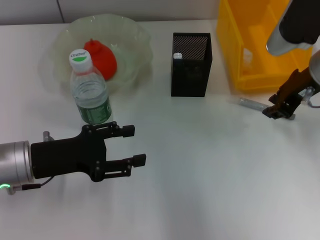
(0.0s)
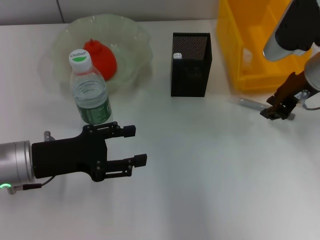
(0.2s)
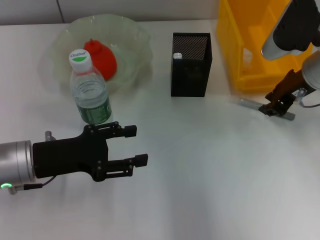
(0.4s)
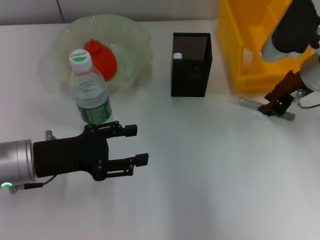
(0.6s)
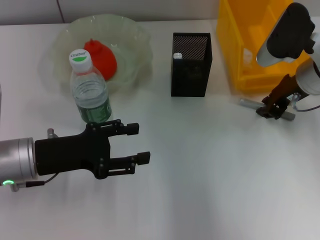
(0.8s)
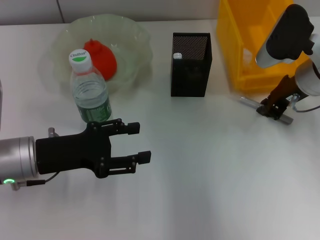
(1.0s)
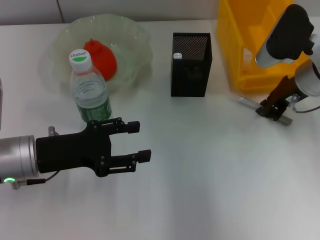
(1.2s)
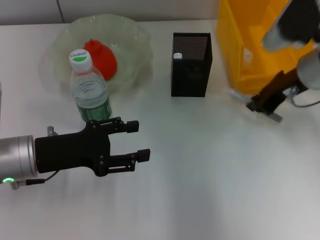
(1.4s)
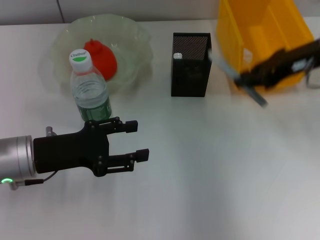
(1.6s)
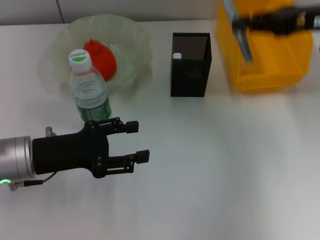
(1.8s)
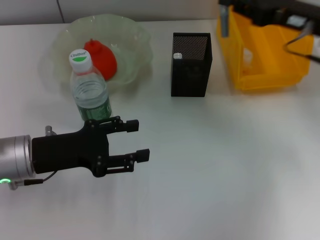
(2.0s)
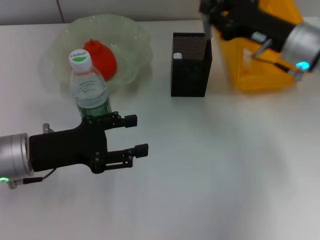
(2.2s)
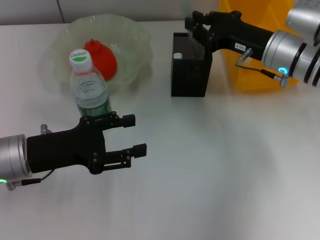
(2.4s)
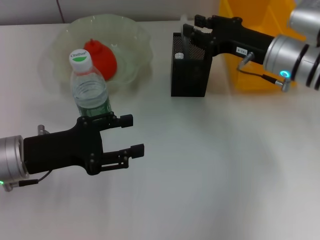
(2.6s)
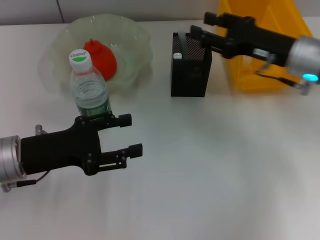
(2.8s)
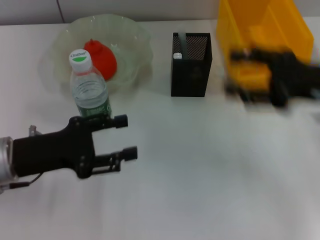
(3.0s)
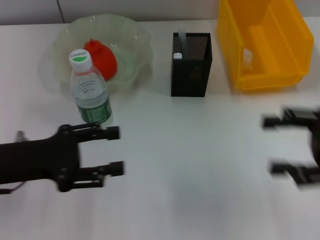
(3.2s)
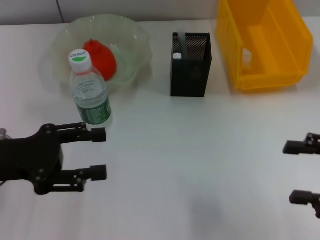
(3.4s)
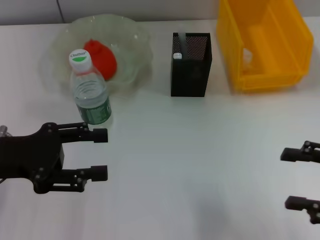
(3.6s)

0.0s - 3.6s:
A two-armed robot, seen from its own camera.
Step, 0.0s - 1.0s: Grab the gray glue with the right hand.
Step, 1.2s - 2.4s: Place the gray glue into the pen holder with the right hand.
0.0s - 1.8s: The right gripper is displaced to the right by some 5 cm, and closes.
1.8s - 3.6s: The right gripper moves backward and downward, roughly 20 cm, and opens its fingers. The left gripper moves approximately 5 cm.

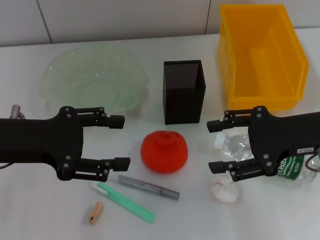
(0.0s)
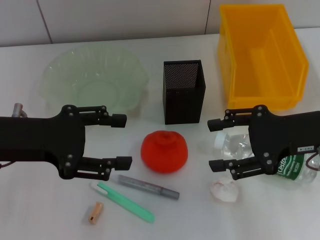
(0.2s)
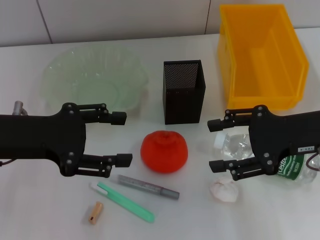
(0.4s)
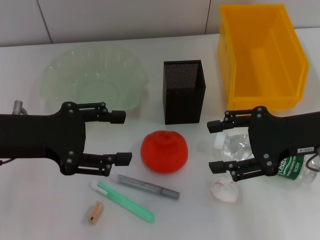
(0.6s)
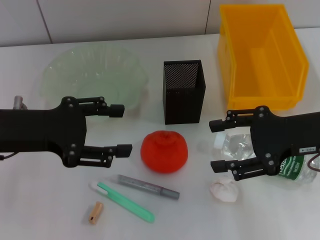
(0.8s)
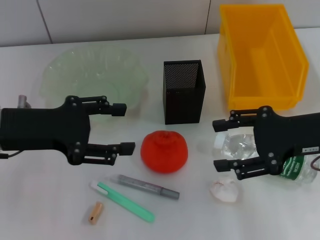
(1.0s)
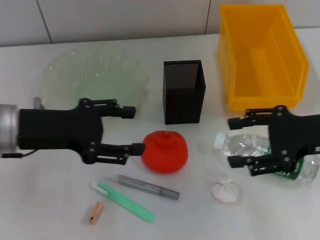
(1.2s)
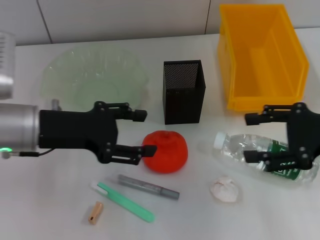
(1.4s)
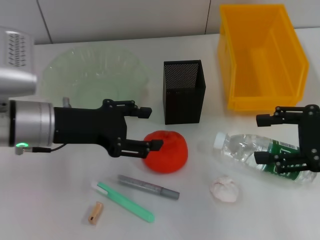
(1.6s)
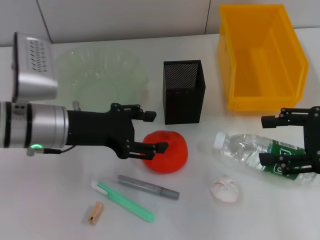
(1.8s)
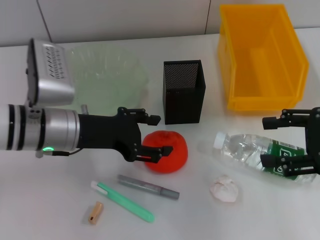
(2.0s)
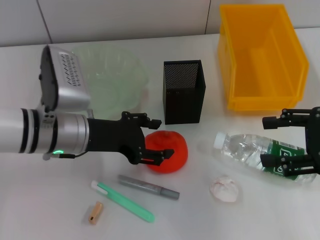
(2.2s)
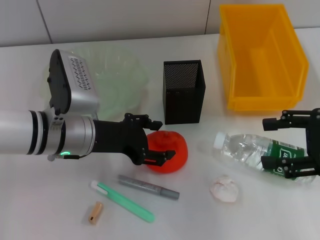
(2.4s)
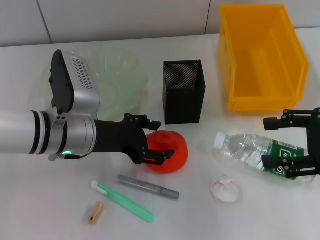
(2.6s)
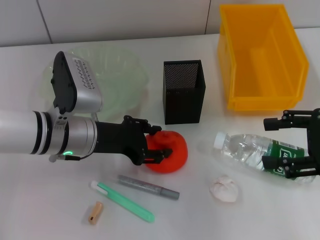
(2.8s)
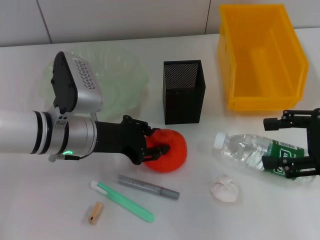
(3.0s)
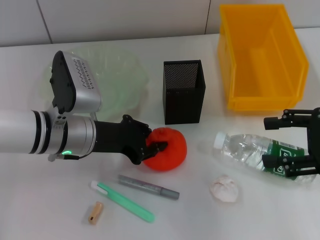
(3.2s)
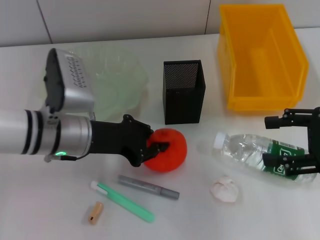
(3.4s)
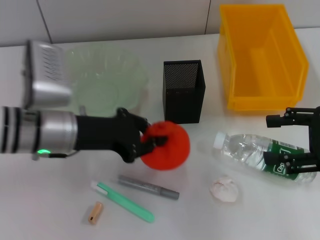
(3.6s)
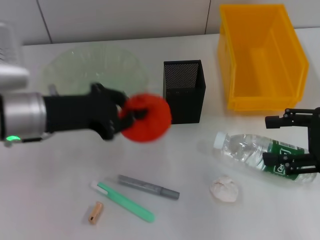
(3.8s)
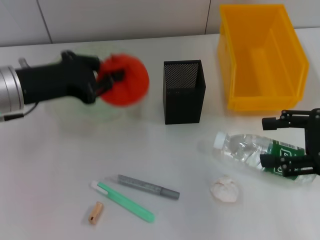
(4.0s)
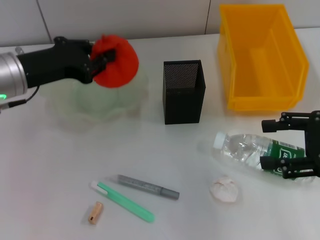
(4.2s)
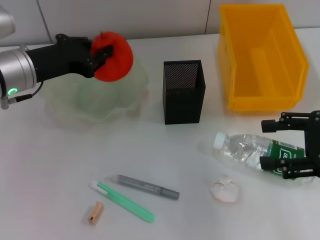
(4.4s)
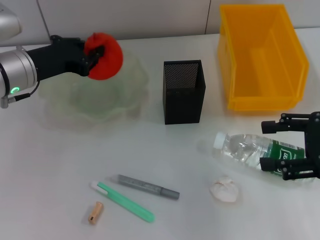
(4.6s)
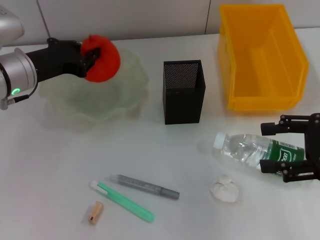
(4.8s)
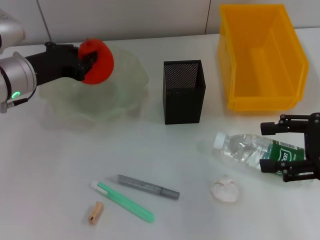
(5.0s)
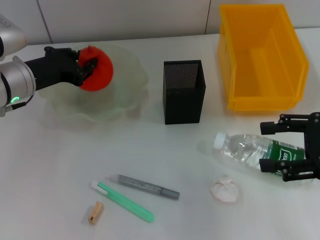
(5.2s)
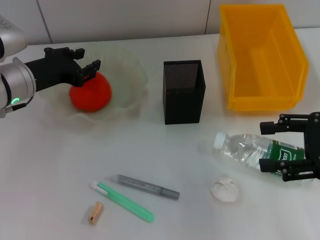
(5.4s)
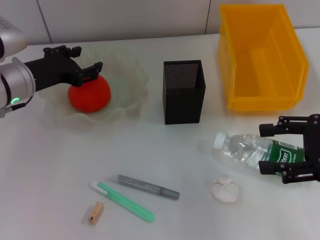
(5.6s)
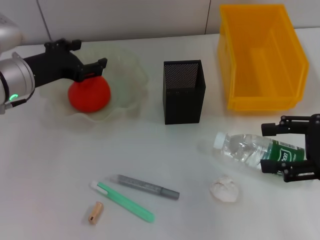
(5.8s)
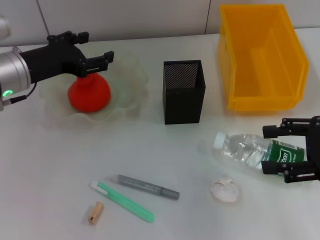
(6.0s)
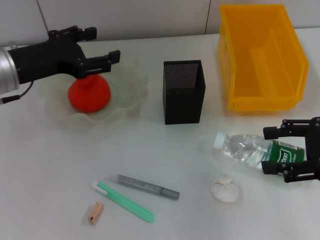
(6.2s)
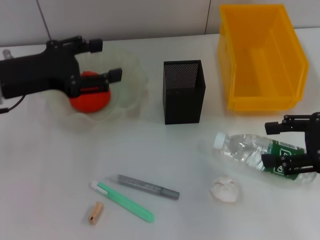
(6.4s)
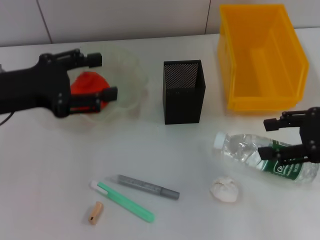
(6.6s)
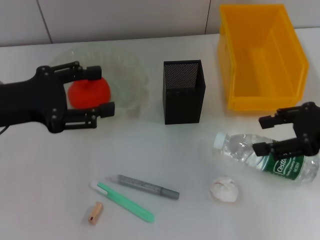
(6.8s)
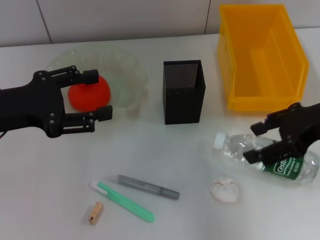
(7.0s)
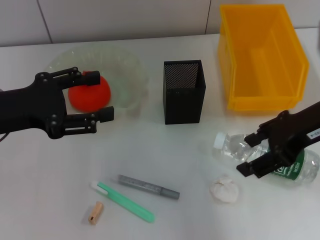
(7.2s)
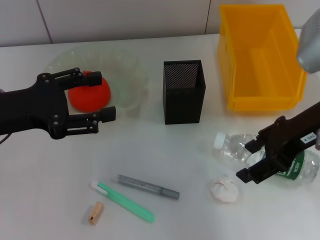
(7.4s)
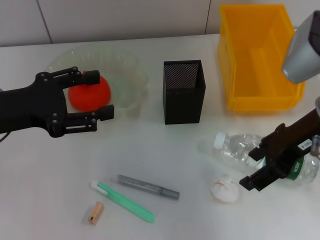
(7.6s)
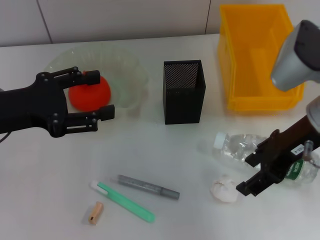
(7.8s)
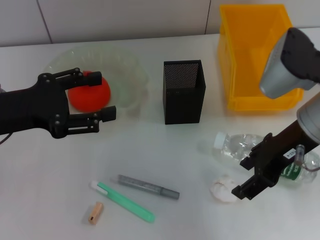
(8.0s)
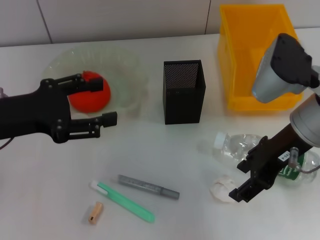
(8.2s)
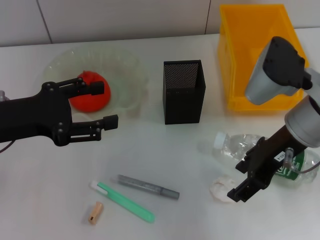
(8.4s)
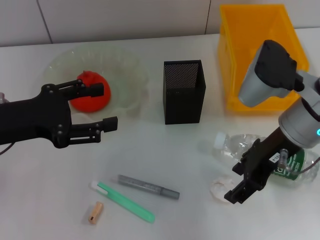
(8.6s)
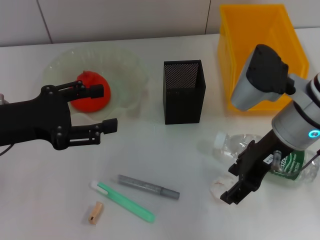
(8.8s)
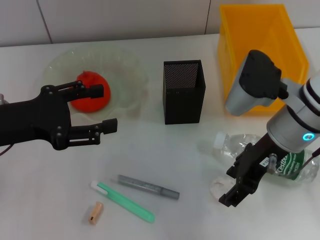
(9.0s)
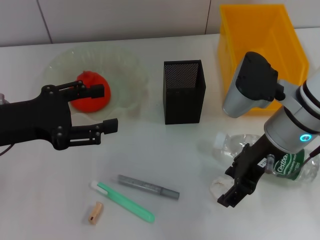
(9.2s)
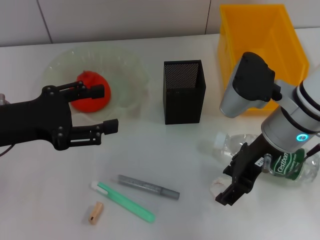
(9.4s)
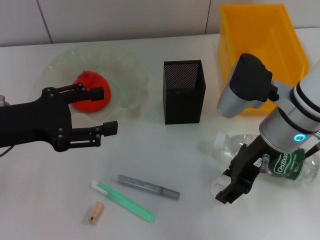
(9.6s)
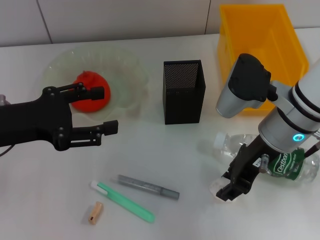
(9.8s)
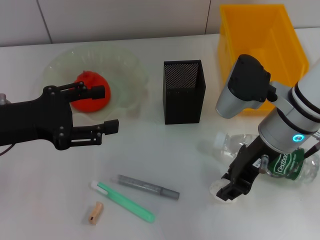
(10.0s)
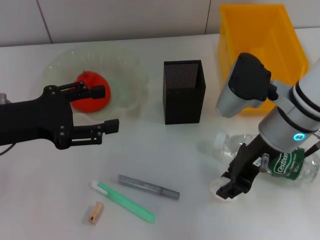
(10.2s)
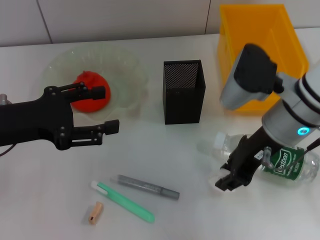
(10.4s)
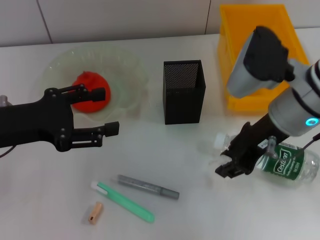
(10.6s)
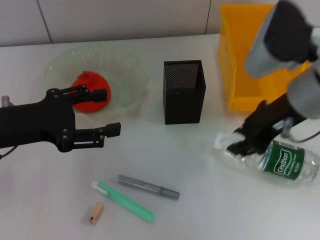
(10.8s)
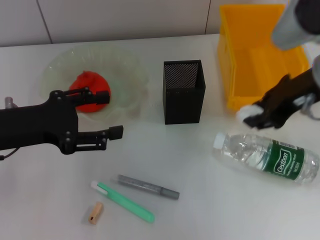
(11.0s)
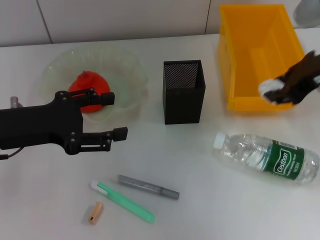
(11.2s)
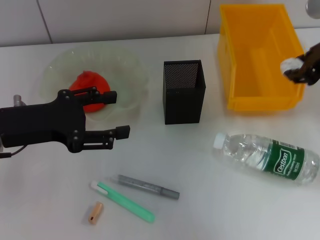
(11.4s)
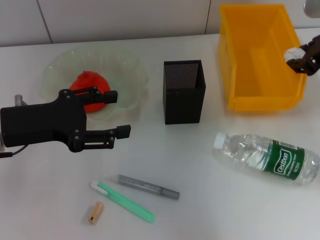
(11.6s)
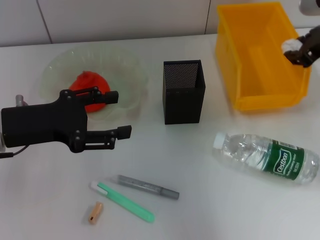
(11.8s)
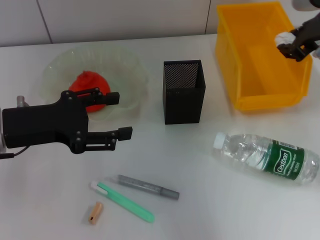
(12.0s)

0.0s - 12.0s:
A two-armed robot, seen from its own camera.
Step, 0.0s - 3.0s: Grab the orange with the left hand.
Step, 3.2s - 6.2s: Place the orange into the fruit bowl with the left hand.
Step, 6.4s - 10.2s: Grab the paper ball with the right hand.
0.0s - 1.6s: The grippers both shift to the right by about 5 cm.
1.6s - 3.0s: The left gripper moves downward, approximately 5 cm.
3.0s - 4.4s: The left gripper travels to the left and upward by roughly 10 cm, and closes up.
4.4s - 6.0s: The left gripper opens up.
6.0s - 7.6s: The left gripper heads backward, covering some 10 cm, while the right gripper moves to the left and forward, some 10 cm.
7.6s - 9.0s: The right gripper is displaced downward by some 5 cm.
9.0s - 10.4s: The right gripper closes up.
10.4s - 12.0s: The right gripper goes about 10 cm to the right, forward and upward.

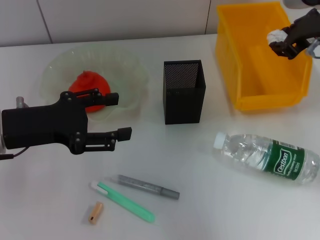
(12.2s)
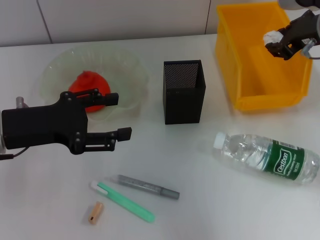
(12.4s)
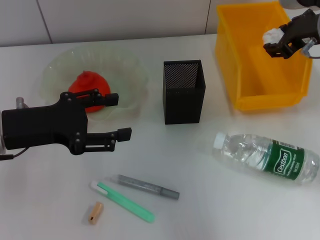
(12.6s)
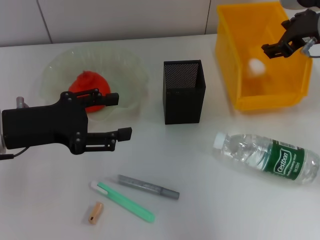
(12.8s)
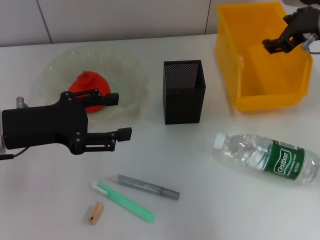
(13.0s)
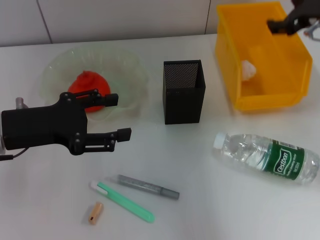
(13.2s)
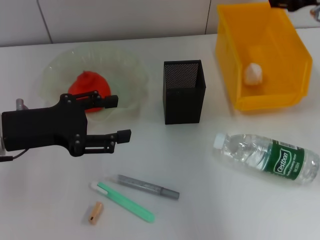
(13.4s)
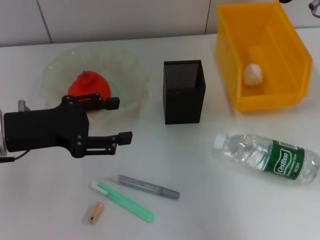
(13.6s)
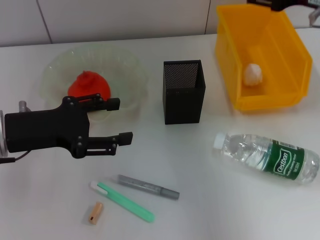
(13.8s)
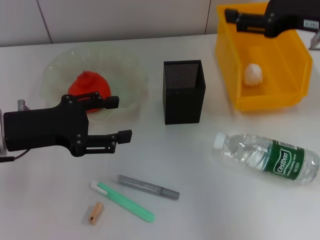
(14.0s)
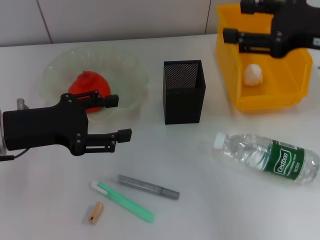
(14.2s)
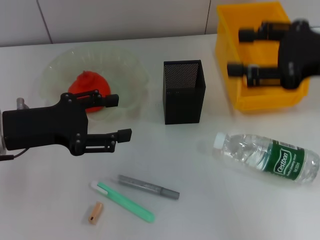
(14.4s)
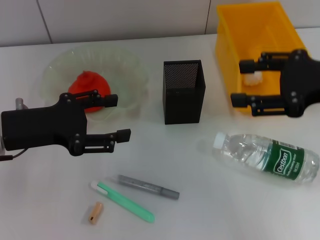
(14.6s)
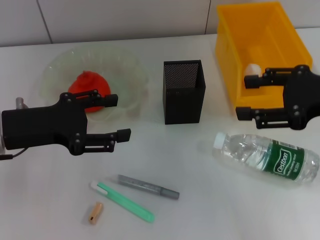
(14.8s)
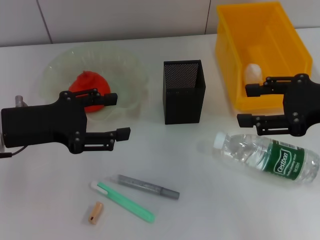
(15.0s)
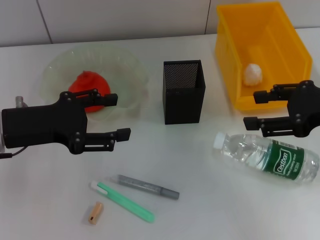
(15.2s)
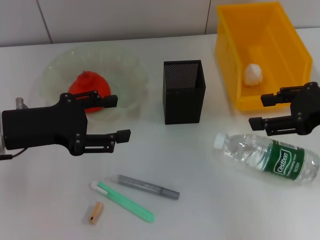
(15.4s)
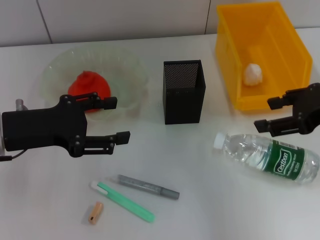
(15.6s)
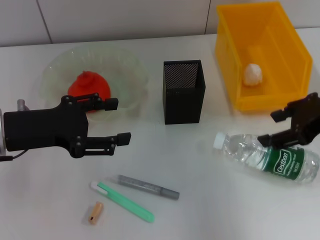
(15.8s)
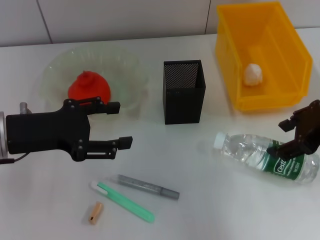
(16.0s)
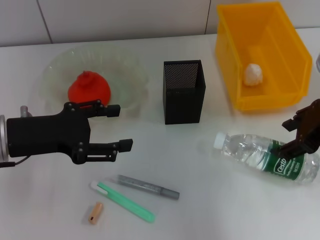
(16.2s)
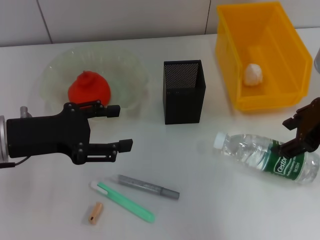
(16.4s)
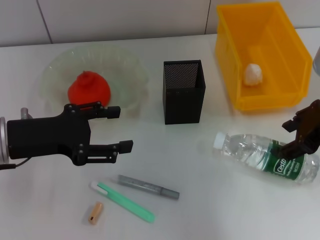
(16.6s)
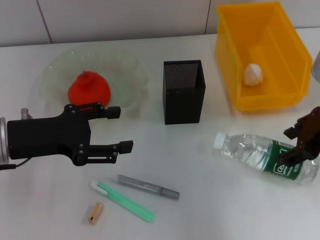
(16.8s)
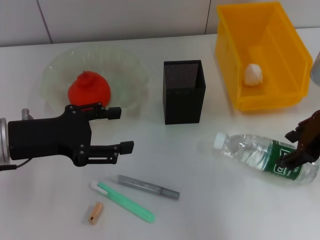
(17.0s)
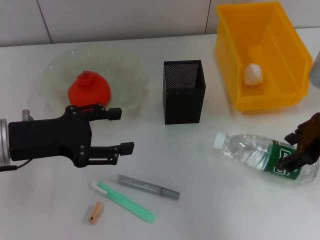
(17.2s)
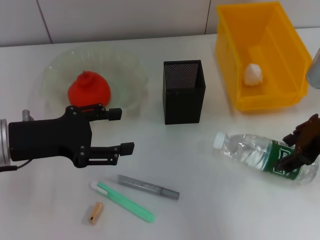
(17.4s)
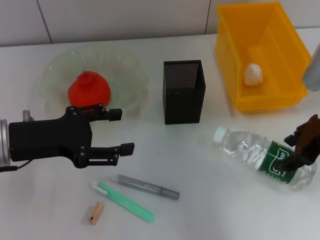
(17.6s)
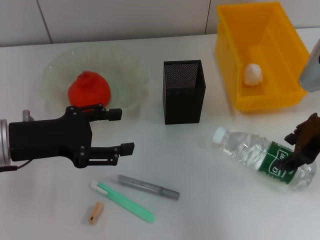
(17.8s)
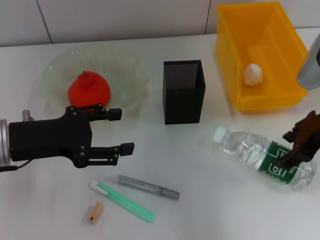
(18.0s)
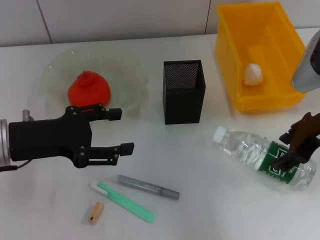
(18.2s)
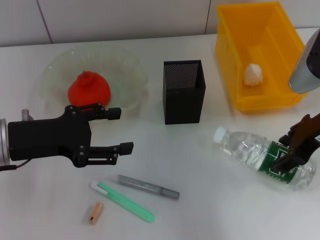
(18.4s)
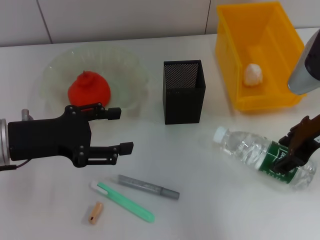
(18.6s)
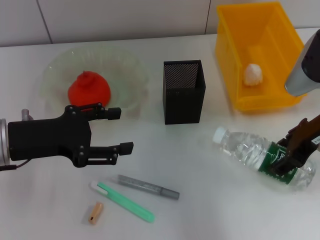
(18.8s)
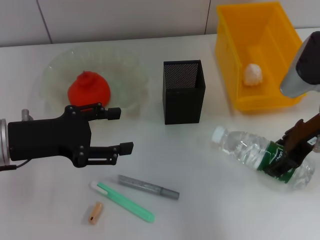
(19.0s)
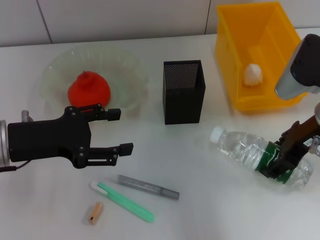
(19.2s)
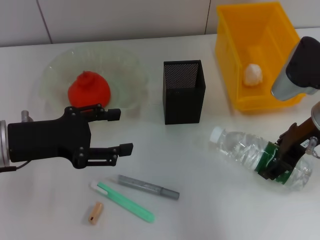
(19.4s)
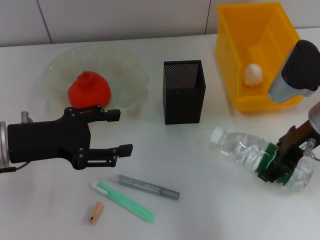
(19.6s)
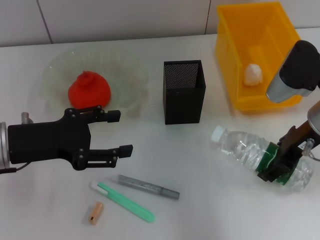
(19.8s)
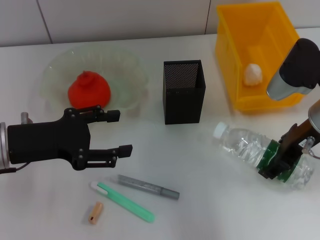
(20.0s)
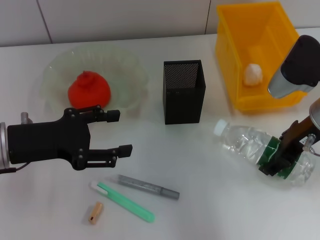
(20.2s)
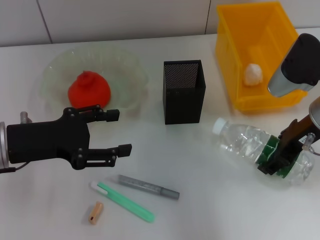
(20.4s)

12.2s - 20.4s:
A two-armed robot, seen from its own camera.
Step, 13.6s - 19.6s: Grab the water bottle with the right hand.
12.2s - 13.8s: The right gripper opens.
13.8s - 15.4s: The right gripper goes about 5 cm backward.
17.2s - 20.4s: The grippers stay close to where they were, moving slightly.
